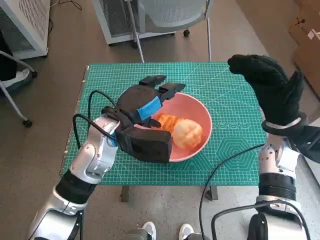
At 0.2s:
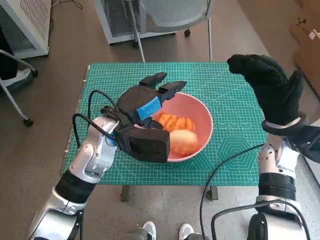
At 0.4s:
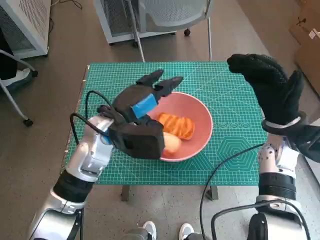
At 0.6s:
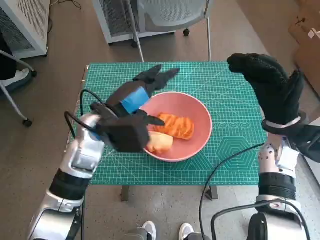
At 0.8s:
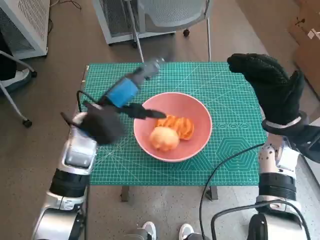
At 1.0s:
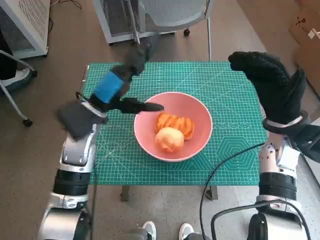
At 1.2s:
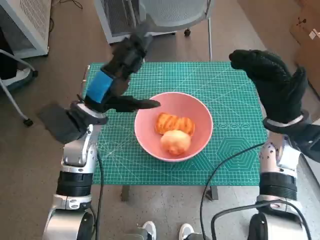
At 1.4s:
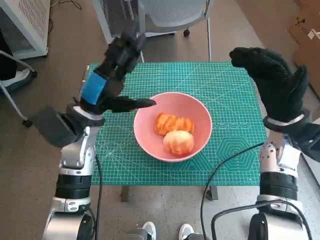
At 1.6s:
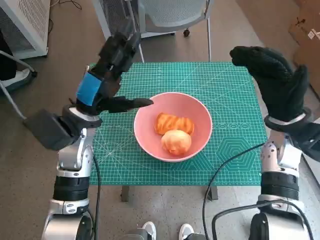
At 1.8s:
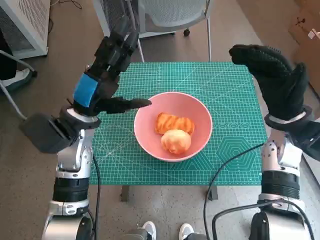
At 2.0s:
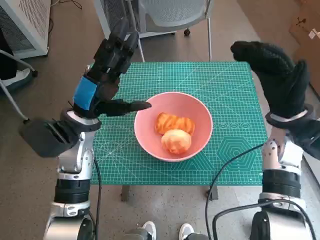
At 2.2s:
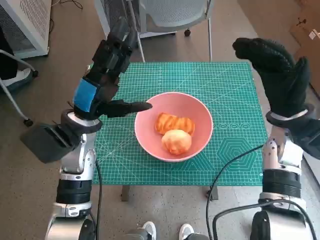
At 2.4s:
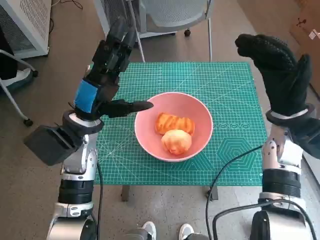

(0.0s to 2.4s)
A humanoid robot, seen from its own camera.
0.0s - 1.2s: The left hand is displaced to the left by about 5 cm.

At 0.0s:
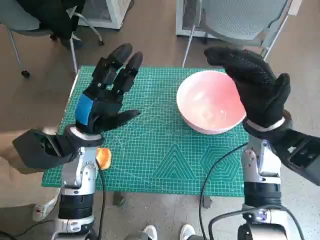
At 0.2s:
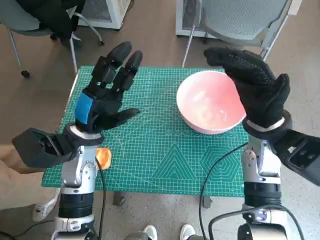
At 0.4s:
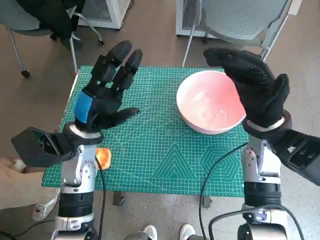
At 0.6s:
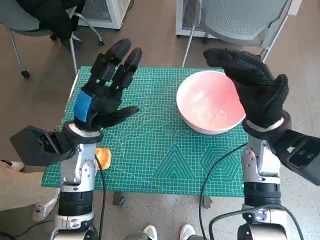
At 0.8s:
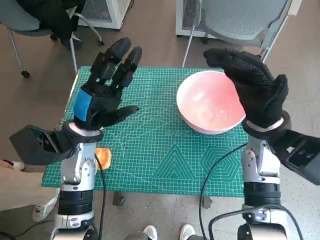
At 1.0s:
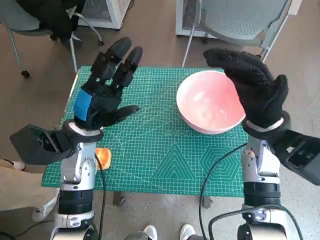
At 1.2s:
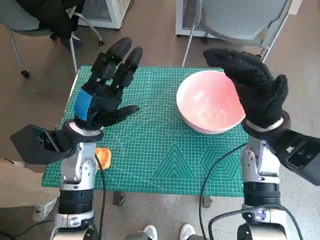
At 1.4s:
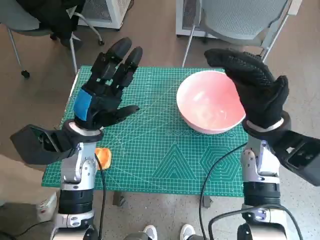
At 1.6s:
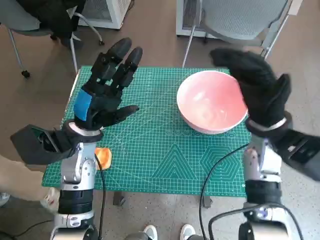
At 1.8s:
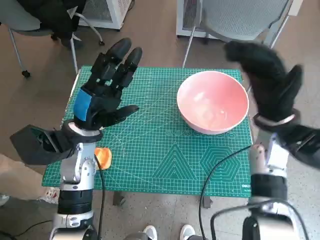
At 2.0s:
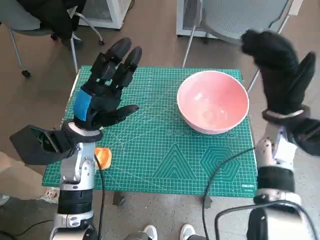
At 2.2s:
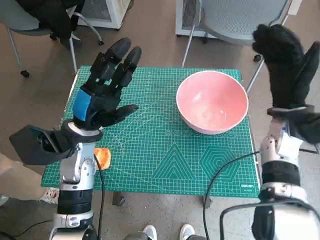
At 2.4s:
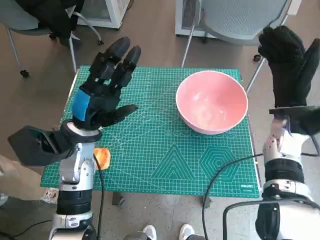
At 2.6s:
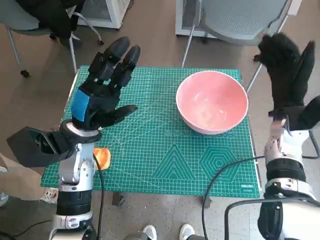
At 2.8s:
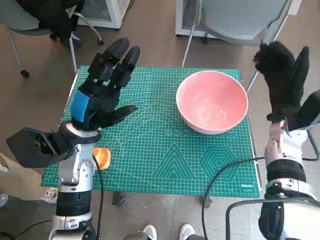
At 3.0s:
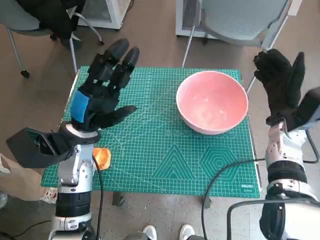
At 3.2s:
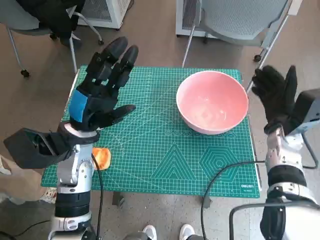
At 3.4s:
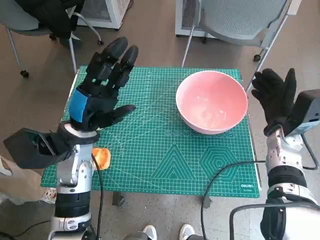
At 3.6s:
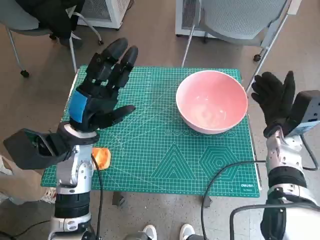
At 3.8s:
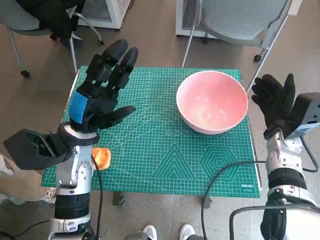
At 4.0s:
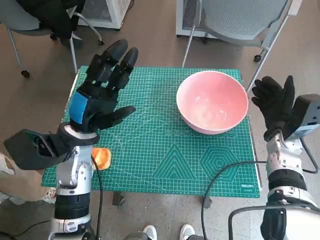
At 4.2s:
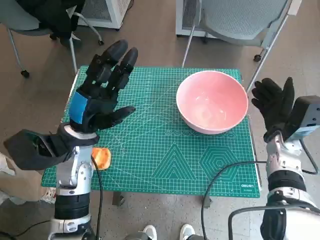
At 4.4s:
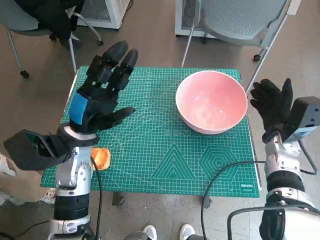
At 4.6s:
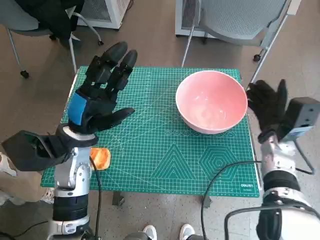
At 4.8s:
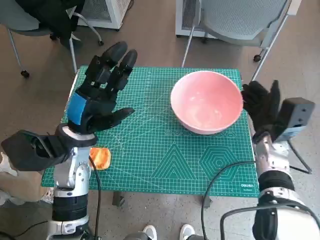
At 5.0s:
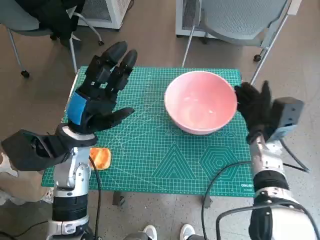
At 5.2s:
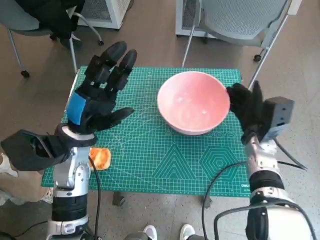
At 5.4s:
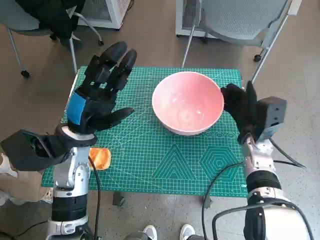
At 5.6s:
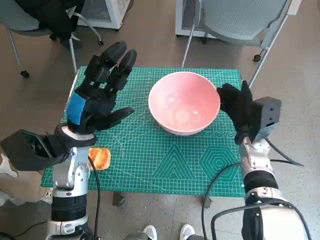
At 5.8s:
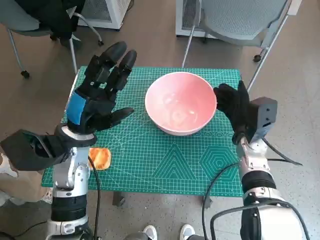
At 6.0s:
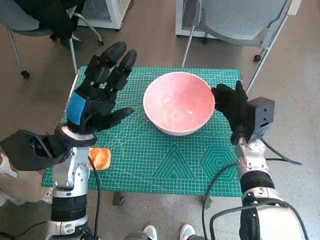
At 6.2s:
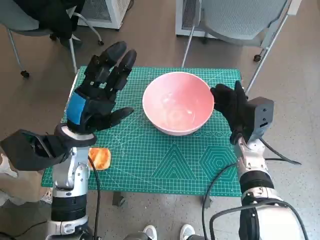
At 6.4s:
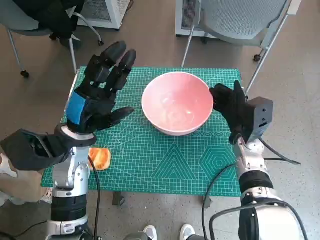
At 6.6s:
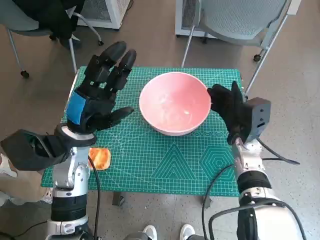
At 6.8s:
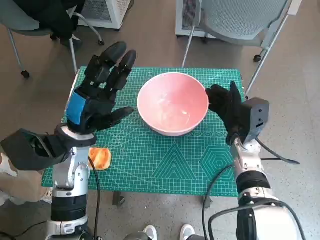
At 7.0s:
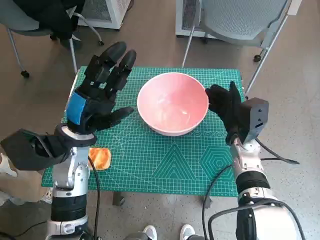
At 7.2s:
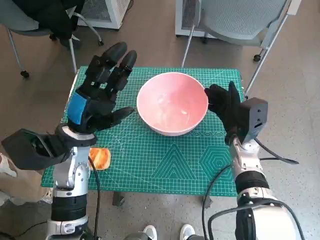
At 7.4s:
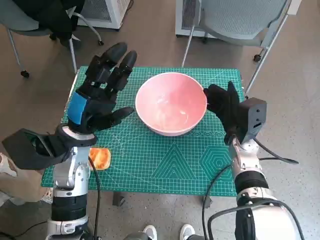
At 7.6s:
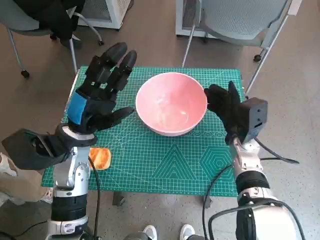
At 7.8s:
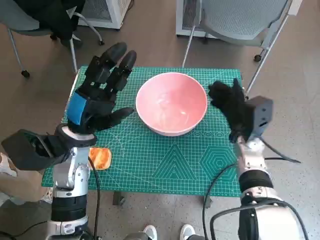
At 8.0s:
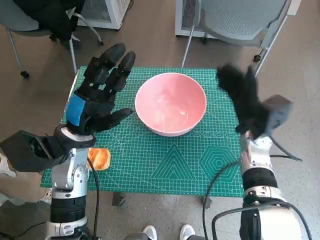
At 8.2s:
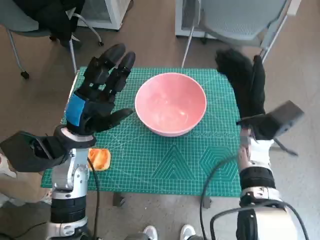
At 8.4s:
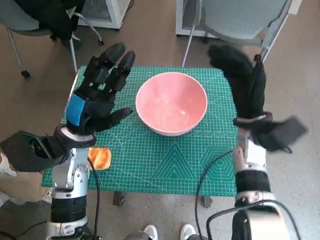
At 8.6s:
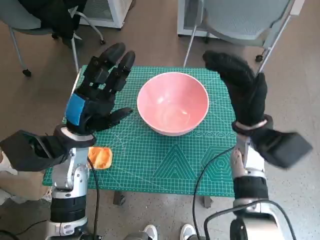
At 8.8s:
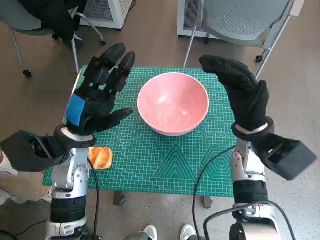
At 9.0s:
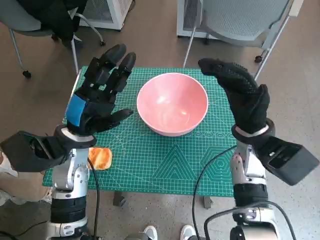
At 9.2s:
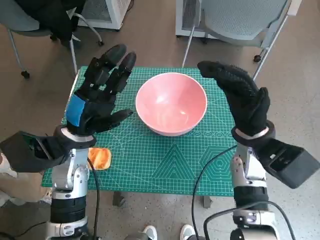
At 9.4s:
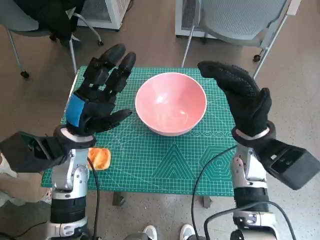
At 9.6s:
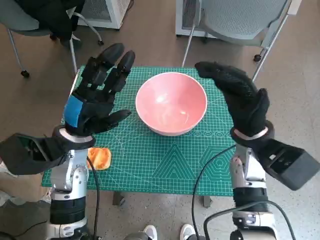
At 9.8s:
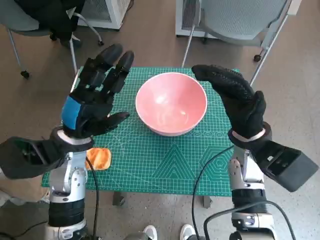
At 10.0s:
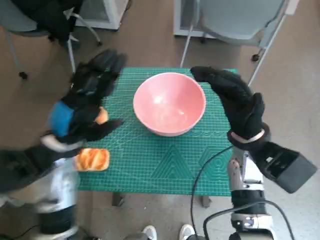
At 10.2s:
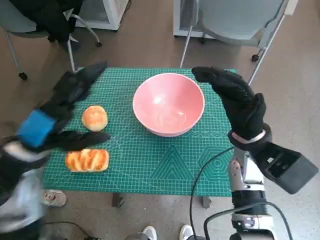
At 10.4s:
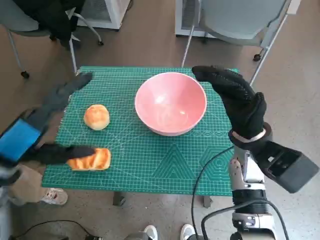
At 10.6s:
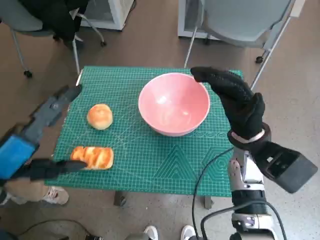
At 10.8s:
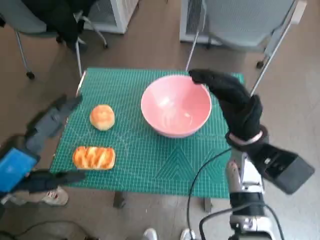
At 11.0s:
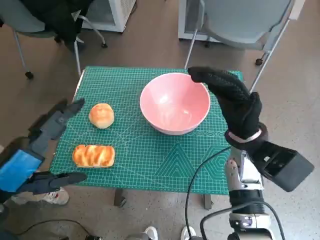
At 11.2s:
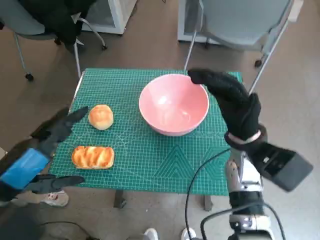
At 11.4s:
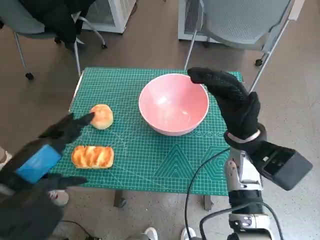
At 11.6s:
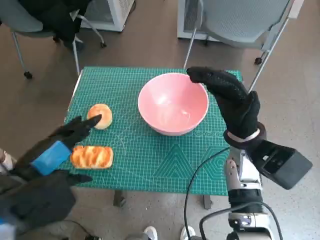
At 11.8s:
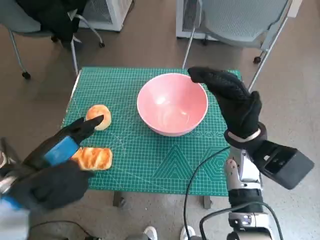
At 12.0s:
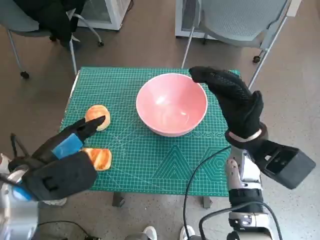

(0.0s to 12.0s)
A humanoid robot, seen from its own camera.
Step, 0.0s - 7.8s: Move the pink bowl to the center of table with right hand.
1.6s - 3.0s: The right hand moves to the right, roughly 5 cm.
3.0s - 4.4s: The hands move only a little.
4.4s - 6.0s: The right hand travels to the left by about 5 cm.
6.0s - 7.6s: Neither hand changes place.
7.6s - 9.0s: The right hand travels upward by about 10 cm.
9.0s - 10.4s: The left hand is displaced backward, upward and to the left by approximately 10 cm.

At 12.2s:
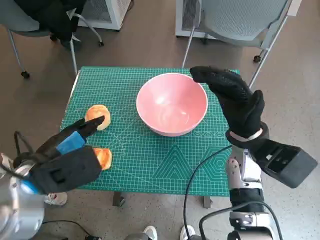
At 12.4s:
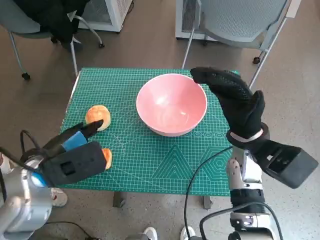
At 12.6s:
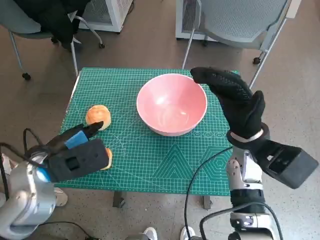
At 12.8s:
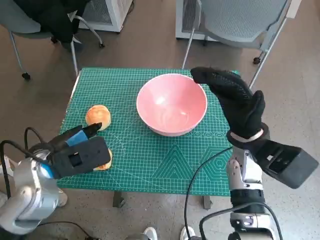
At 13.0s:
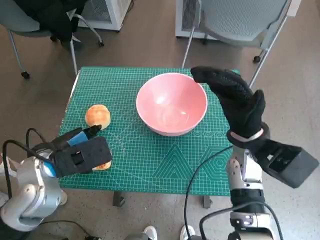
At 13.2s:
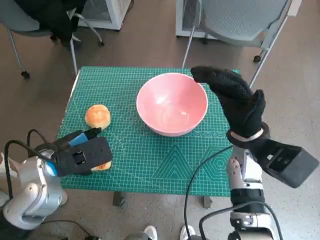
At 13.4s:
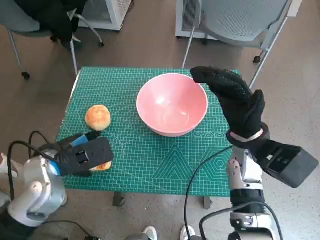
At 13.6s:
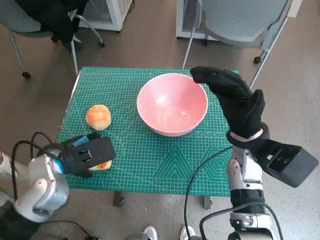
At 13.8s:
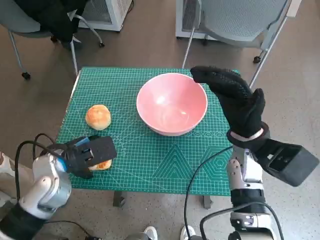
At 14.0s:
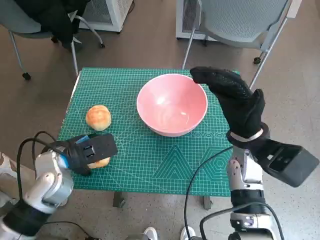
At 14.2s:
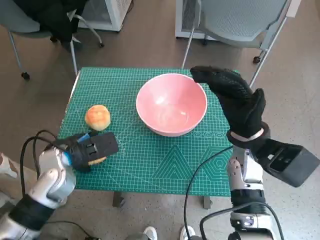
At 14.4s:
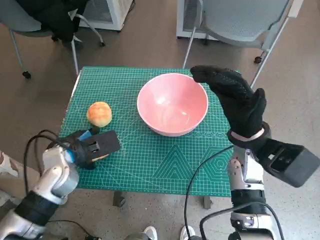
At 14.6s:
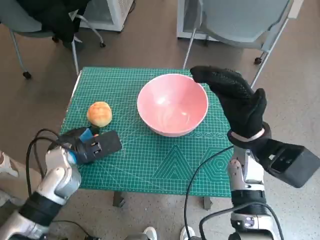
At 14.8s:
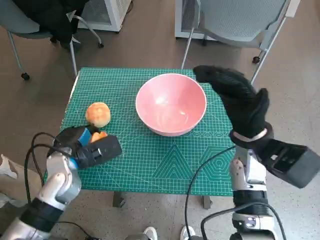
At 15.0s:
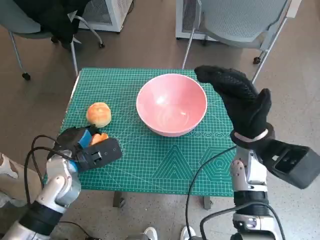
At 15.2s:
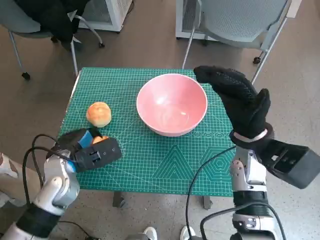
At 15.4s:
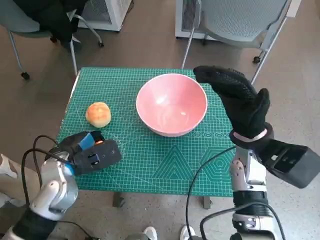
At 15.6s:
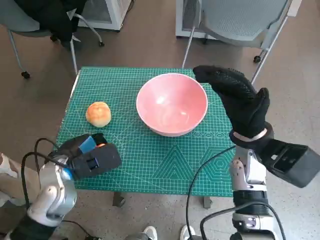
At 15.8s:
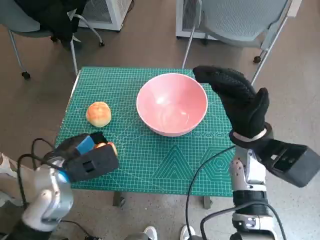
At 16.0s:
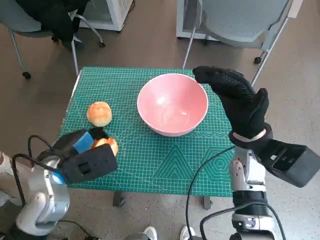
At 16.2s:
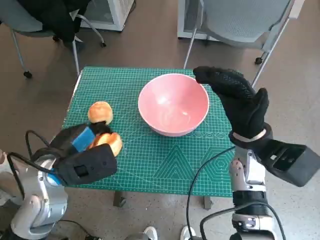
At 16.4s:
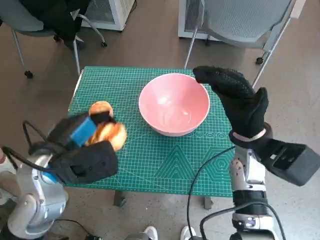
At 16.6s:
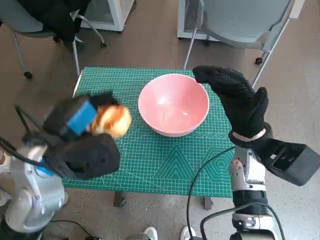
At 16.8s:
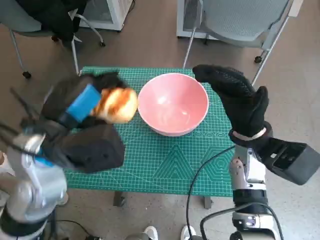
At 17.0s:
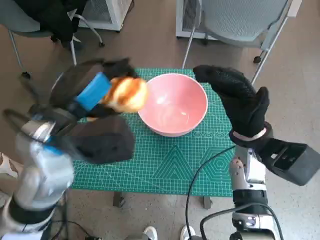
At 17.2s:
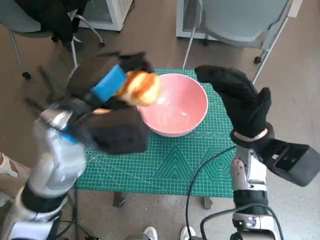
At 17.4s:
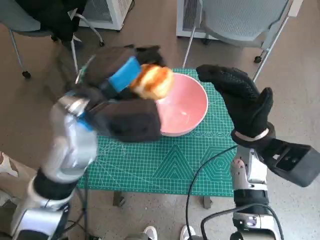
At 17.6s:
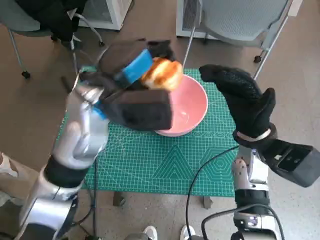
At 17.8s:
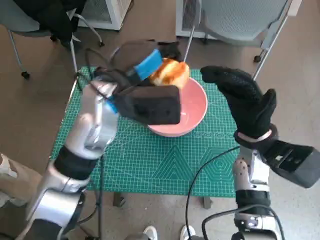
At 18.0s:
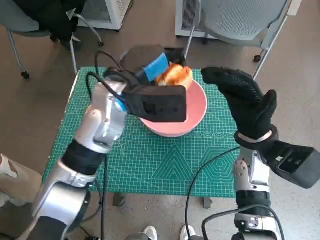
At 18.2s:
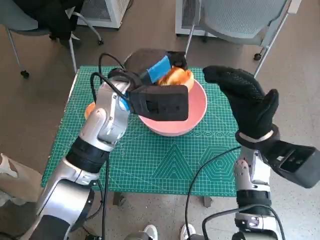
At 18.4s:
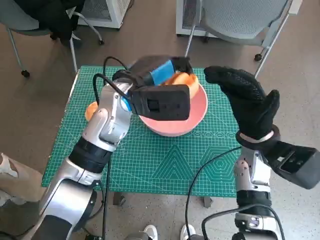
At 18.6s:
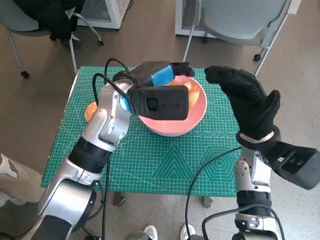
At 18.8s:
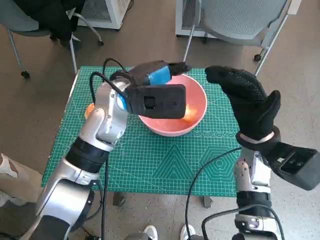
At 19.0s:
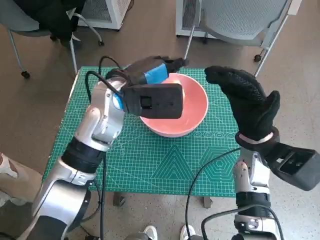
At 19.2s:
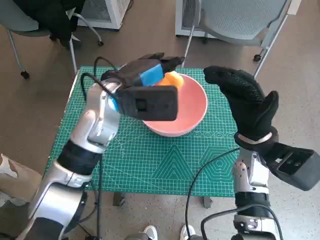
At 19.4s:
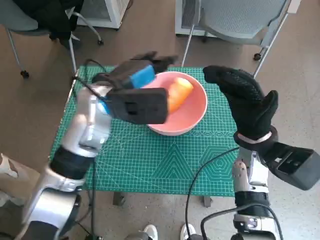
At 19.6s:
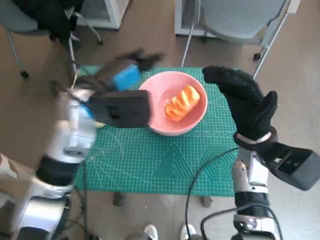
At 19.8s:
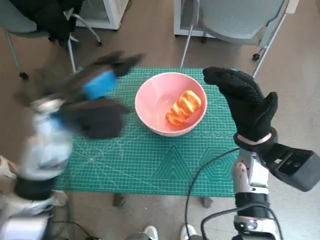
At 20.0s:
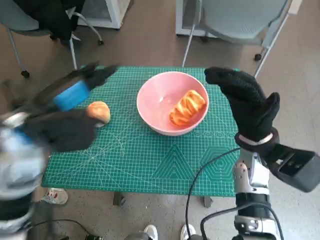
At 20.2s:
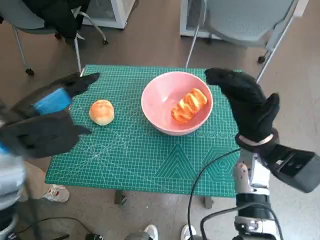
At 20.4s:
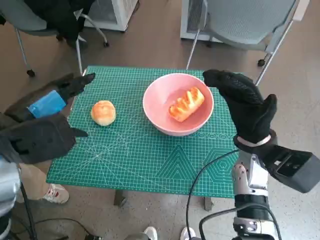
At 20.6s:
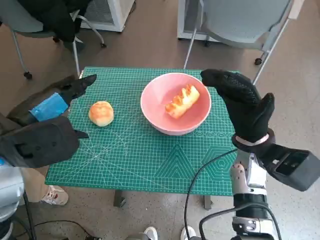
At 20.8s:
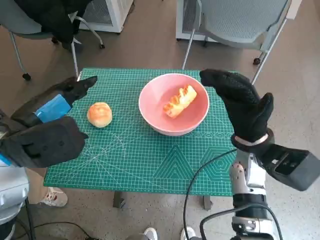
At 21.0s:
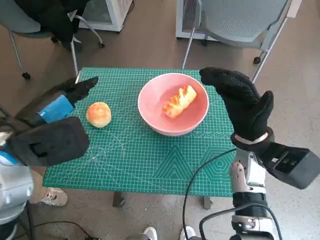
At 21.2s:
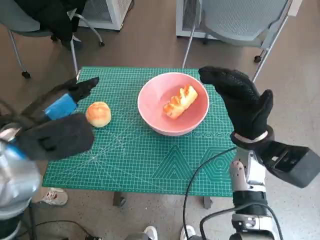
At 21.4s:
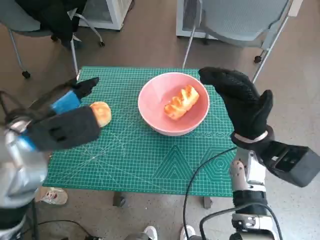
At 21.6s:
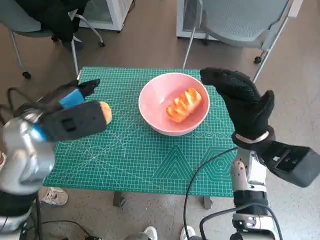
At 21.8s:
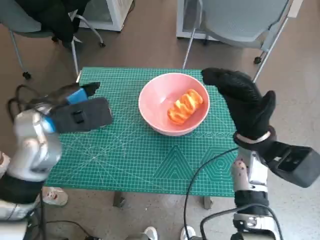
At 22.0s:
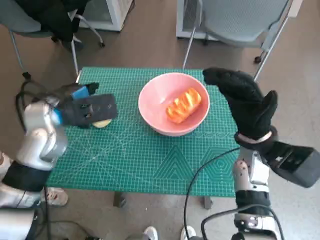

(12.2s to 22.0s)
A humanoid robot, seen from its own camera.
Step, 12.2s - 14.4s: Grasp the long bread with left hand.
Step, 14.6s - 19.0s: Place the long bread in pink bowl with left hand.
12.2s - 13.6s: The left hand shifts by roughly 5 cm.
13.6s - 15.0s: The left hand changes place by approximately 5 cm.
15.0s - 16.4s: The left hand shifts approximately 10 cm upward.
16.4s - 17.8s: The left hand travels forward, to the right and upward by approximately 15 cm.
19.2s - 20.6s: The left hand travels to the left and backward by about 15 cm.
20.6s - 22.0s: The left hand shifts about 10 cm forward.
